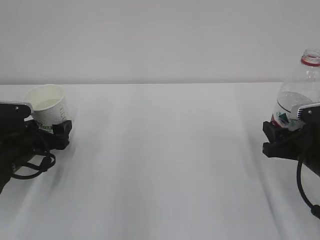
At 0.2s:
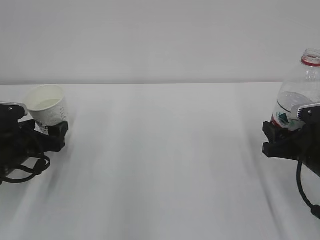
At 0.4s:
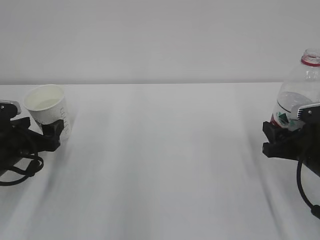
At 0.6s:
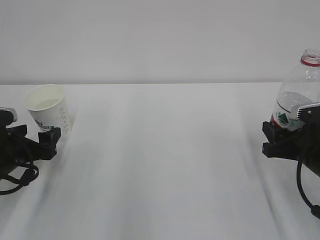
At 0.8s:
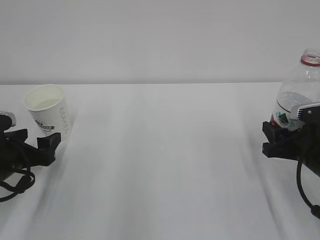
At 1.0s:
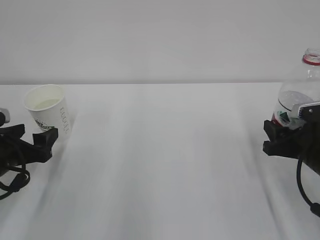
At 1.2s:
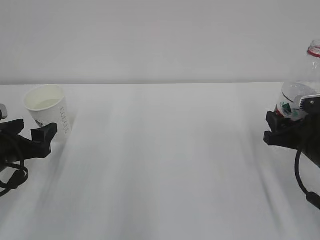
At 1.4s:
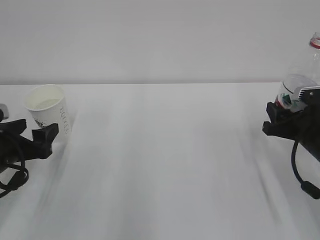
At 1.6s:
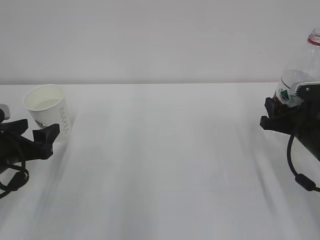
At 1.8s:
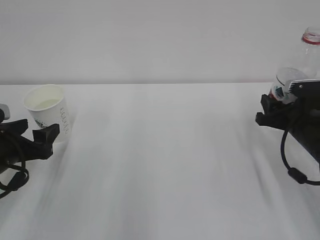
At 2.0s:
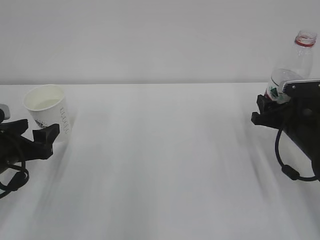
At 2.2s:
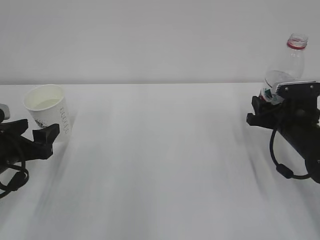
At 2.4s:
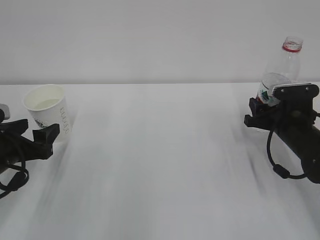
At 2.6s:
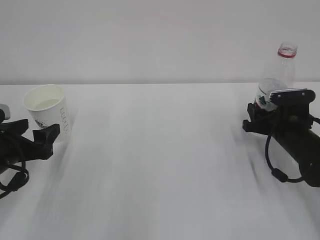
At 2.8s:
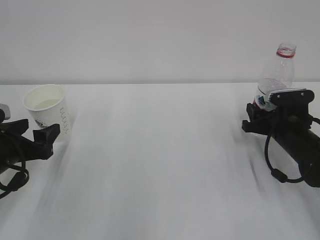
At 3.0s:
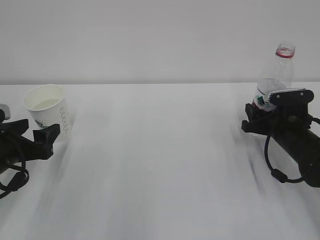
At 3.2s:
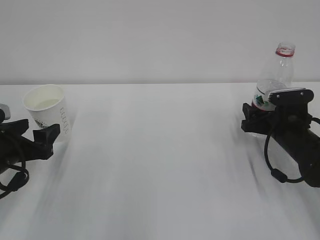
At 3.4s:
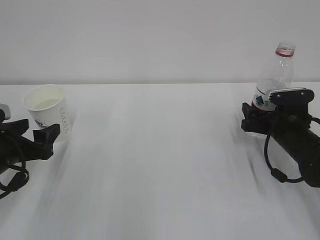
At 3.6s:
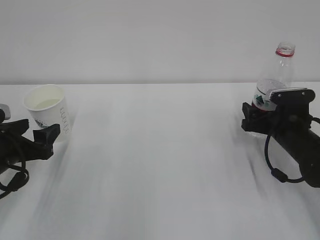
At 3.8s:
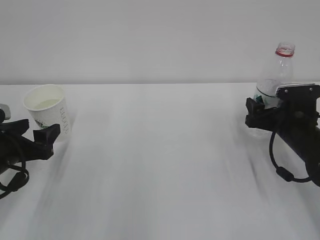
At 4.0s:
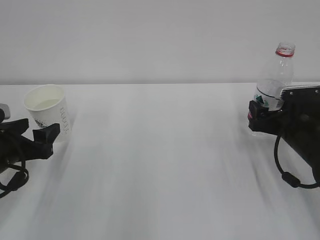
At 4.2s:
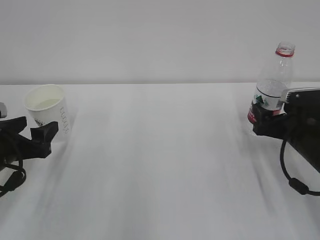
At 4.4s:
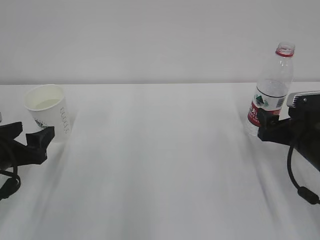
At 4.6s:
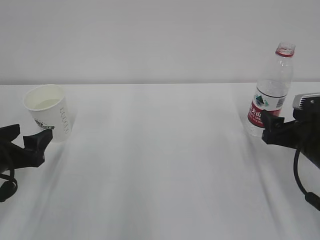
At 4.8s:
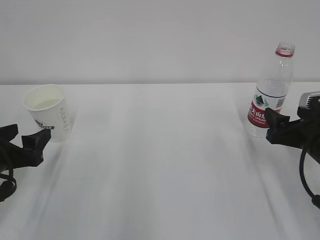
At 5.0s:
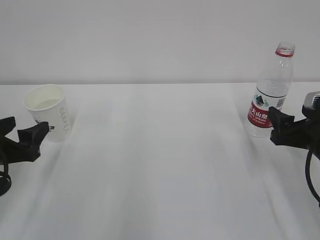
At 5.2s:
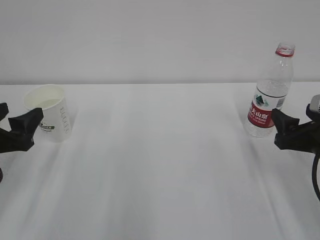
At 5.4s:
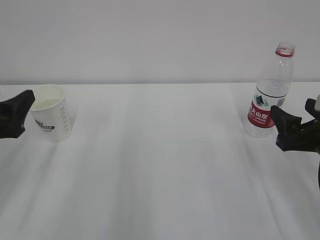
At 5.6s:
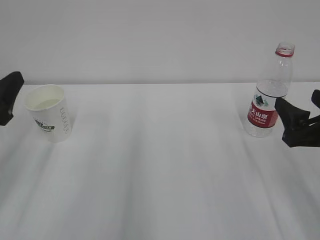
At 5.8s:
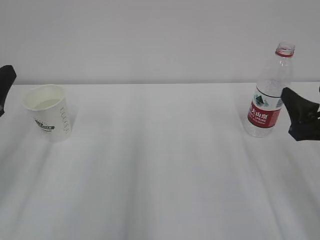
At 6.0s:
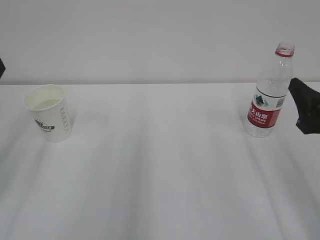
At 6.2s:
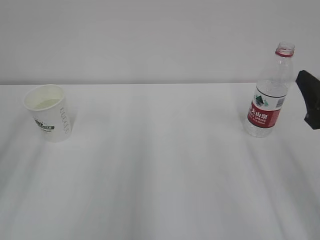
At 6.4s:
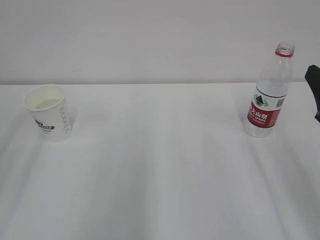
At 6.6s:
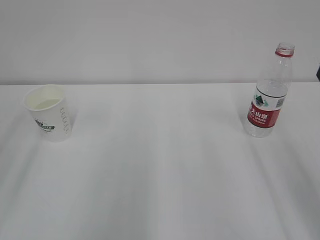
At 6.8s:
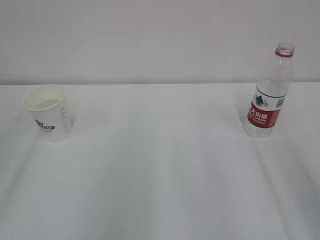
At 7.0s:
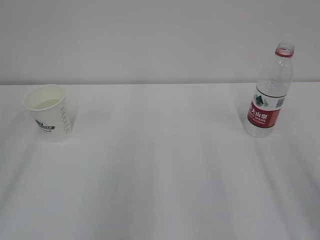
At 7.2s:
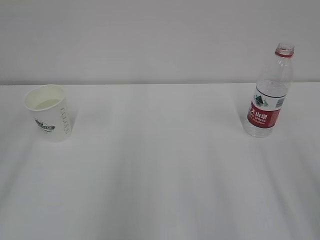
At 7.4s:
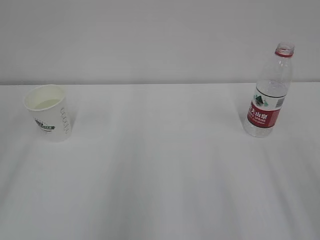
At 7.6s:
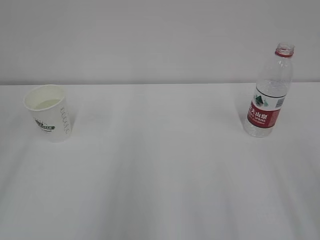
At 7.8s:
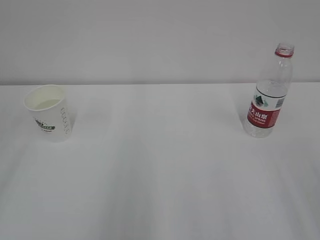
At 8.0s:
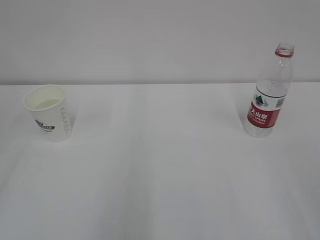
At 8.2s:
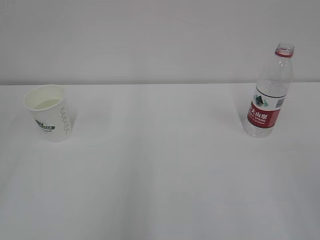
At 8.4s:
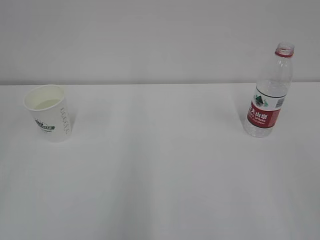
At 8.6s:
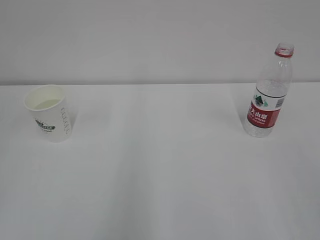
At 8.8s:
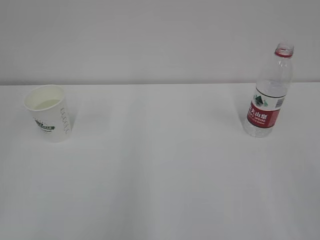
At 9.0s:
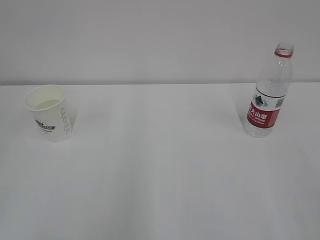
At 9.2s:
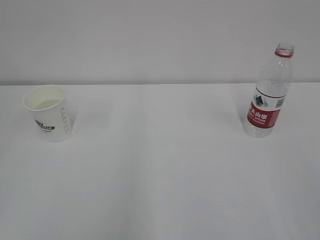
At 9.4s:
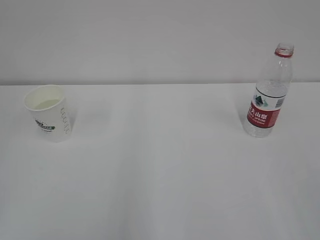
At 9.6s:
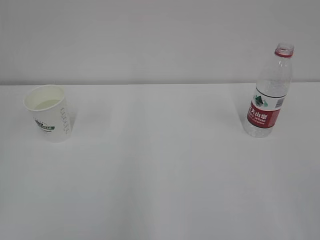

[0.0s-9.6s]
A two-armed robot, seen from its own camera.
0.0s to 1.6s: The left gripper goes approximately 5 cm backward, and closes up.
1.6s to 3.2s: The right gripper ends up roughly 5 cm from where it was, and opens up.
3.2s to 4.8s: The right gripper goes roughly 10 cm backward and upward.
4.8s to 6.4s: The two grippers go some 15 cm upward and backward.

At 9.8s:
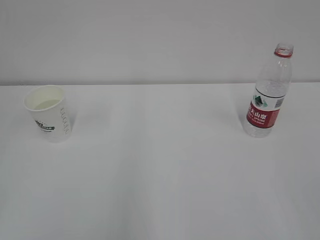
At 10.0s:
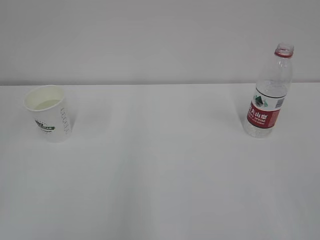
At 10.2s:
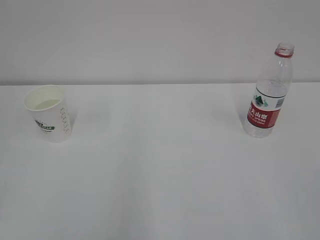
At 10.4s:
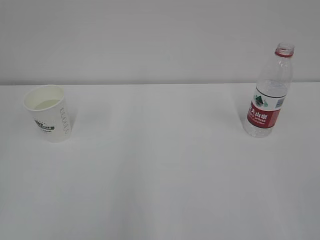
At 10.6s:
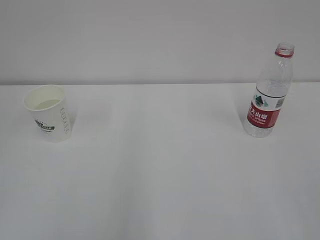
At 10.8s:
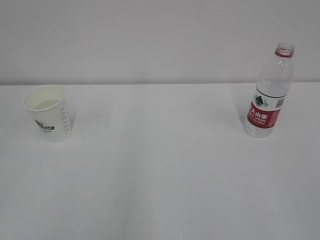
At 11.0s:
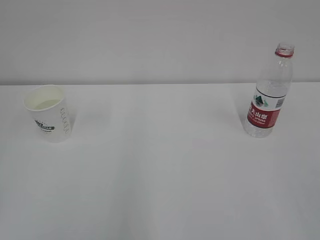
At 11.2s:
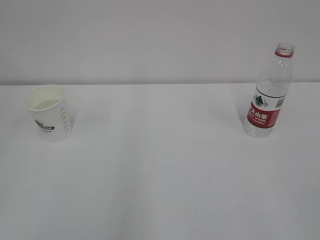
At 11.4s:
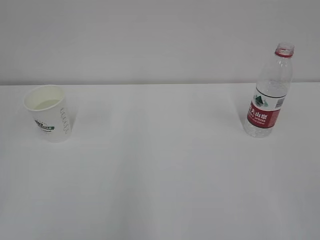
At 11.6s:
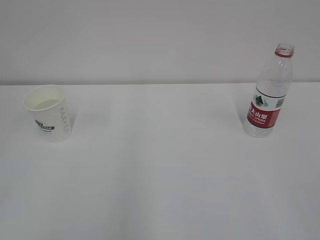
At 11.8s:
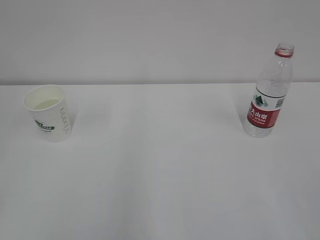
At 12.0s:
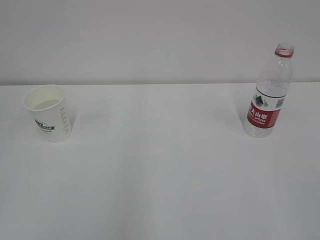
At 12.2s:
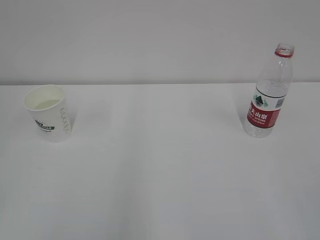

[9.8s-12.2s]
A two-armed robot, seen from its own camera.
9.8s to 12.2s: Both grippers stay about where they are.
